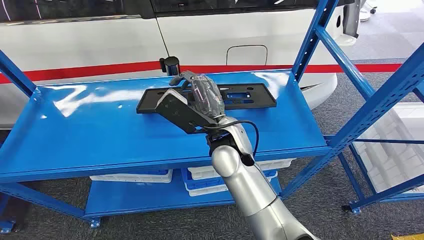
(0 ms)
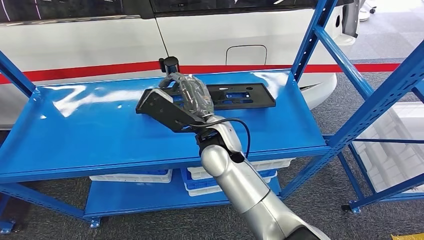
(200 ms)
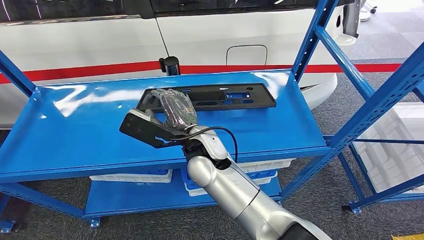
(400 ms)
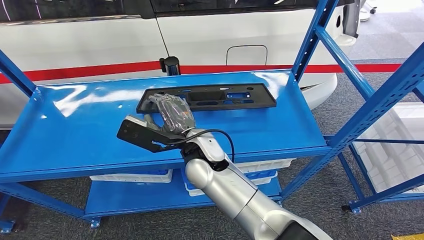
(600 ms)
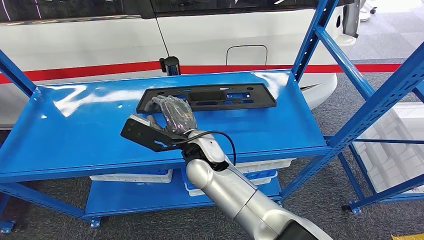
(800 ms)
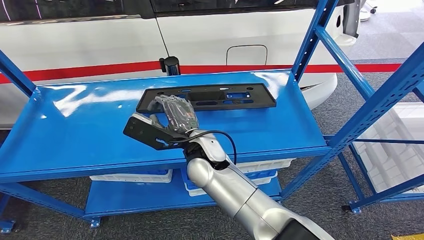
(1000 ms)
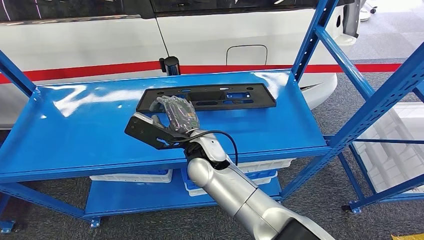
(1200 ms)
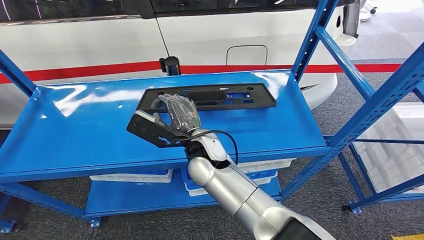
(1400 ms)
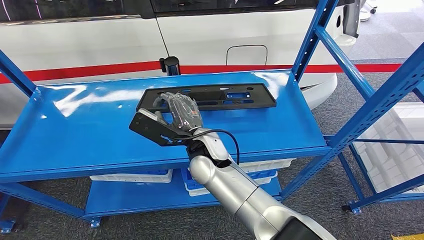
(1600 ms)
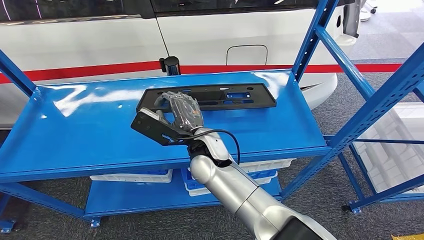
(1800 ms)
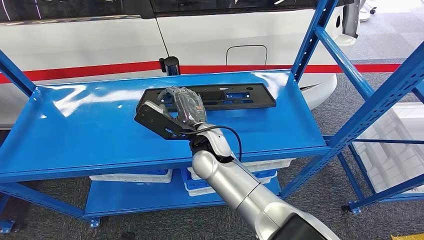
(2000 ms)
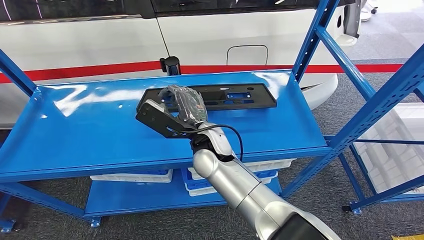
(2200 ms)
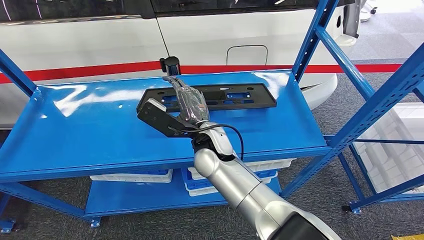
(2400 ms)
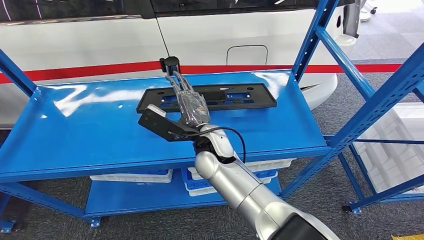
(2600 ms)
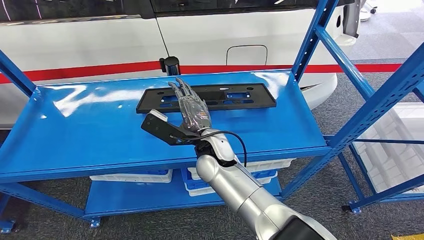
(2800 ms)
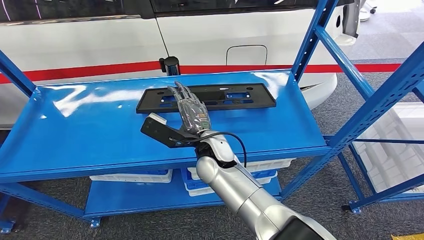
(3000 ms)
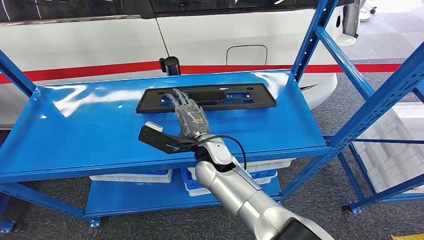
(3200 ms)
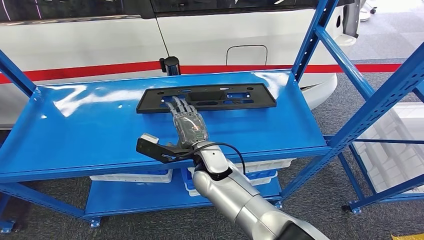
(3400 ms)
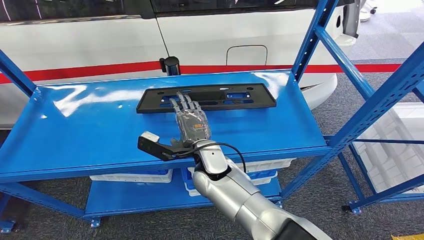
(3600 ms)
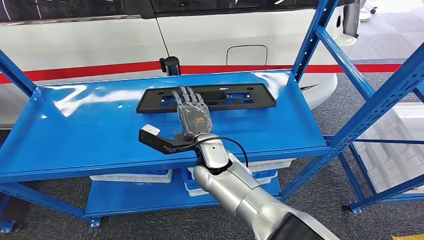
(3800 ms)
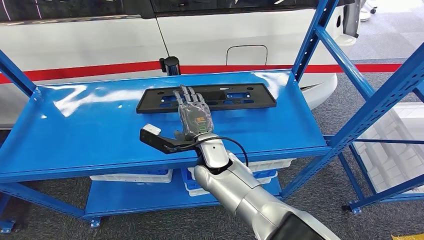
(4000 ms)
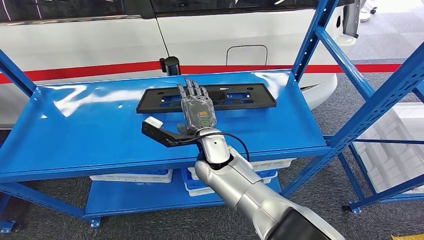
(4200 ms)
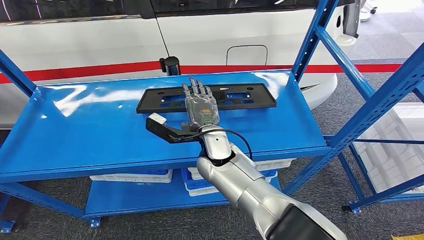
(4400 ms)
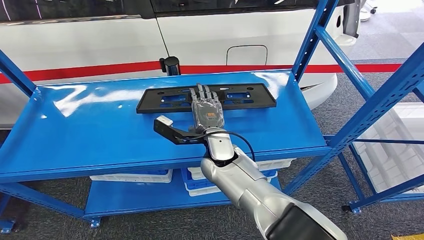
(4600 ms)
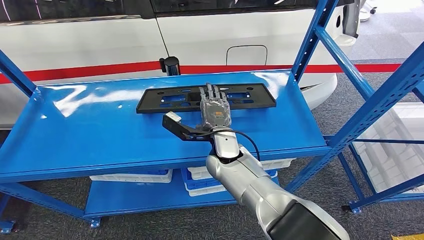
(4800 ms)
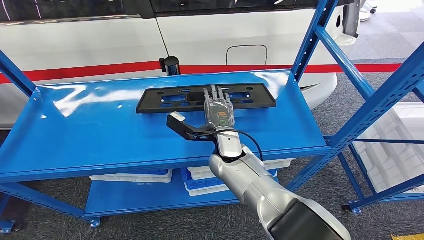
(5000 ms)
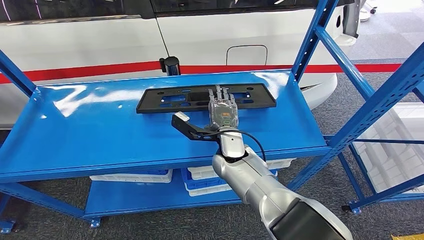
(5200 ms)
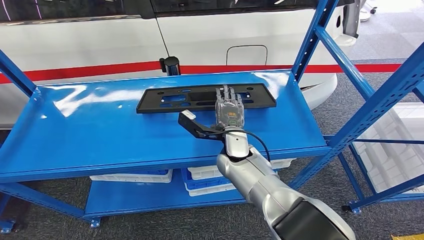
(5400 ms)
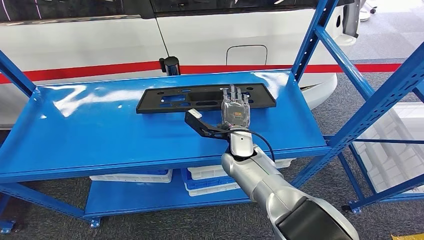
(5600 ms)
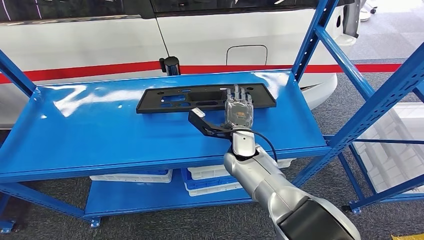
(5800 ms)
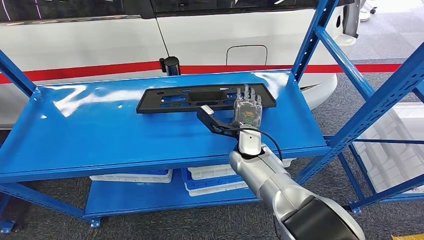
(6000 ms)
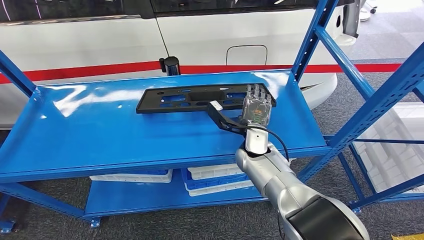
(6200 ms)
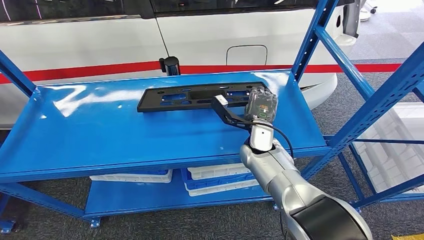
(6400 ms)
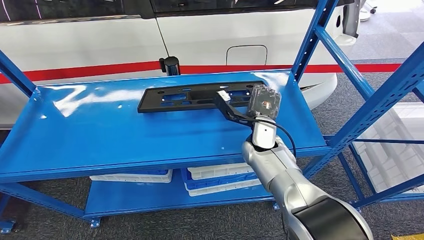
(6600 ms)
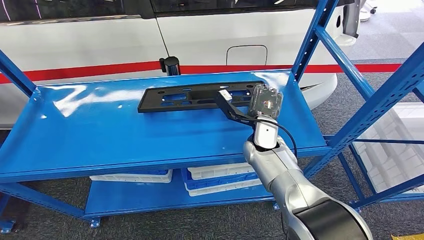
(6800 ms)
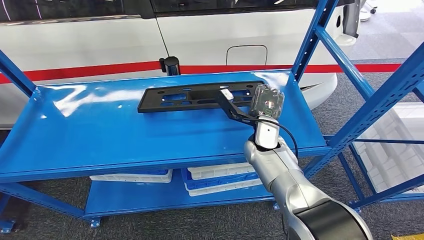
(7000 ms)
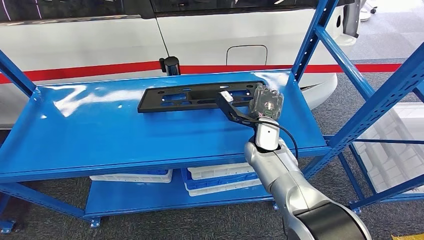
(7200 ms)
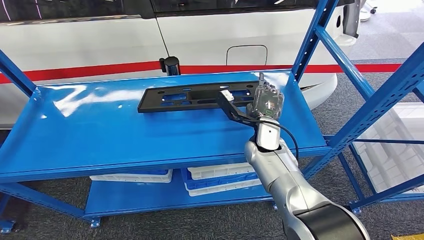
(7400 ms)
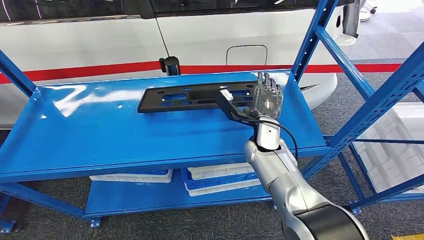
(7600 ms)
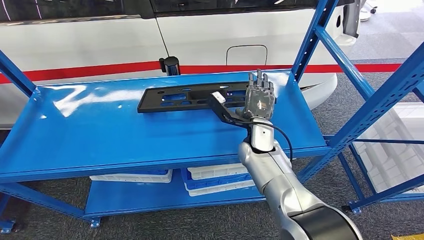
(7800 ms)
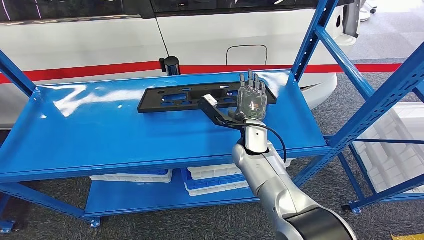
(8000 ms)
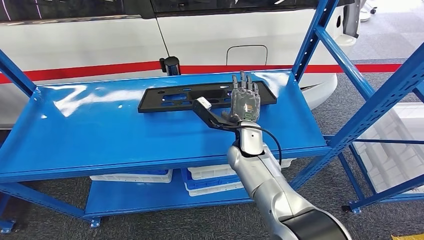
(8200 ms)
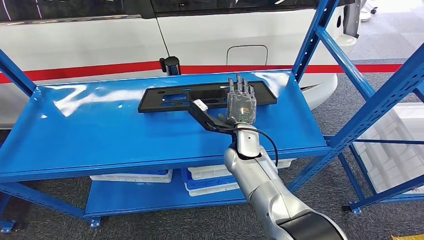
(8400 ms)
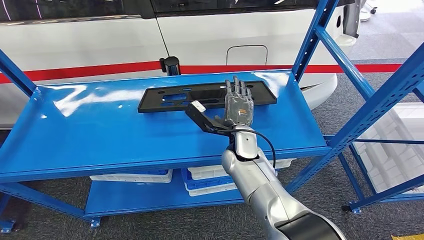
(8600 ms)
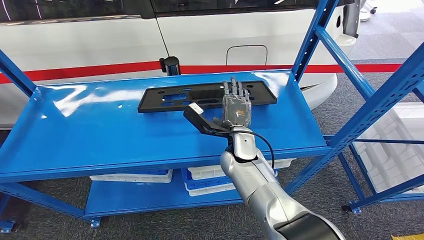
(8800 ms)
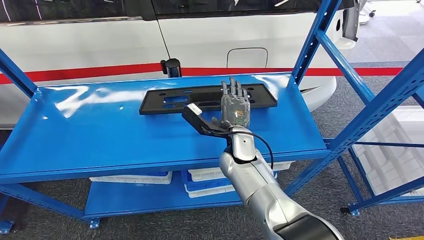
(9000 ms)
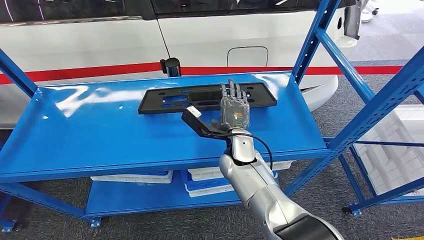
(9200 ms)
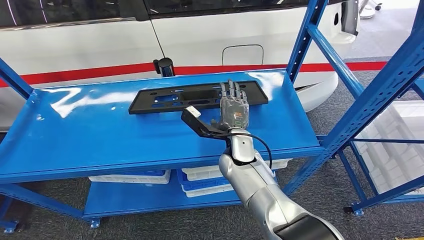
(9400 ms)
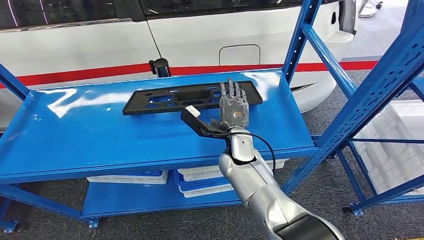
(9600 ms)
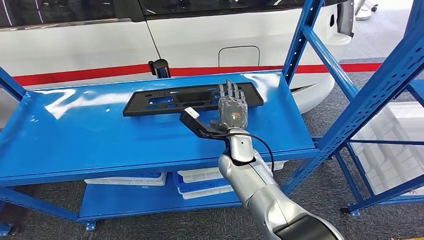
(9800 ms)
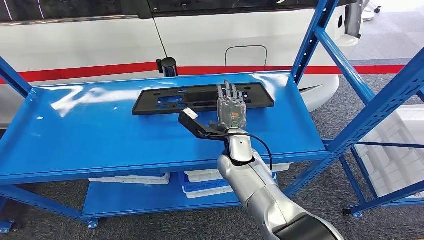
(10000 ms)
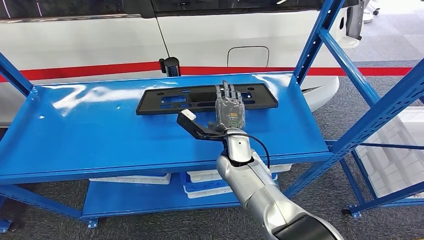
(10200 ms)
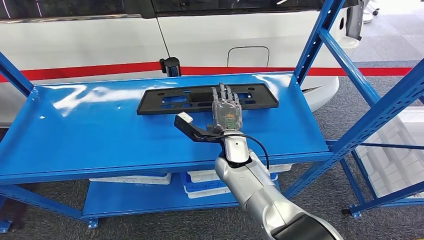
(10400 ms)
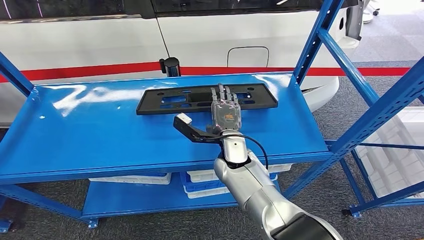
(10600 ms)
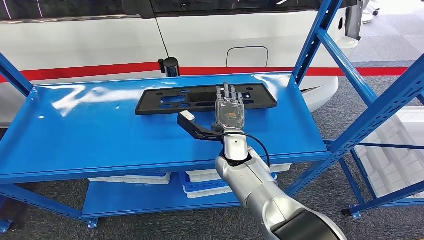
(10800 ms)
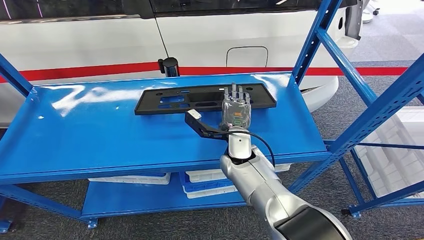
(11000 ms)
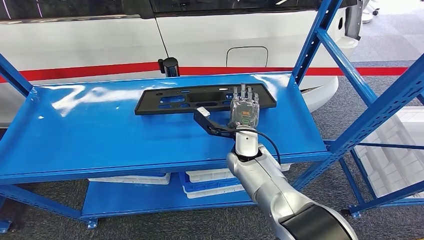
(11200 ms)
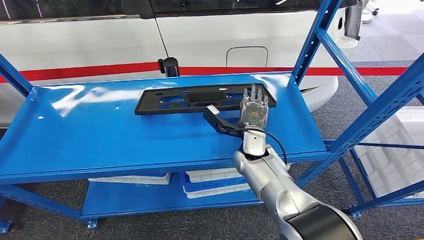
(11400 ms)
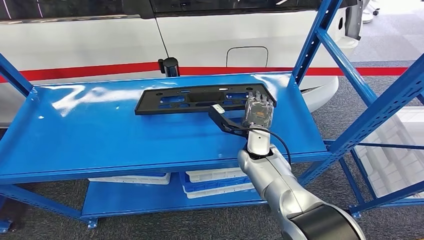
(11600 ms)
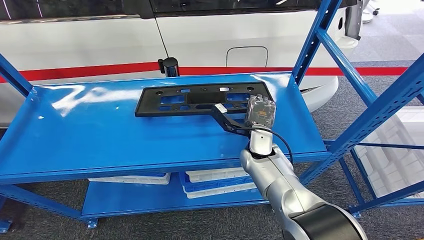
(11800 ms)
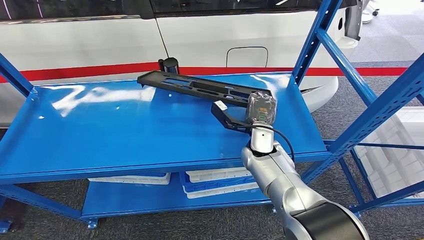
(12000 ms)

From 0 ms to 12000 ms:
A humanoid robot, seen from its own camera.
From 4400 ms to 6000 ms: The right hand heads to the right, covering approximately 10 cm.
From 6000 ms to 7600 ms: There are only small adjustments of the hands.
From 9000 ms to 10400 ms: The hands make only small movements.
From 10400 ms to 12000 ms: The right hand travels to the right by approximately 10 cm.

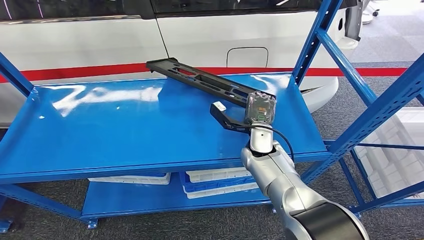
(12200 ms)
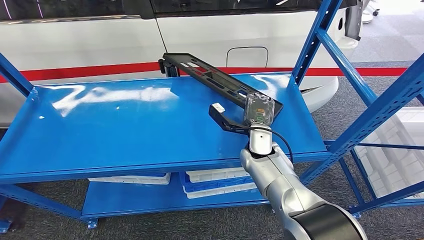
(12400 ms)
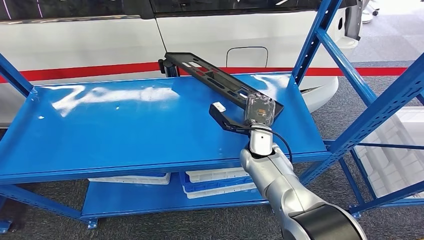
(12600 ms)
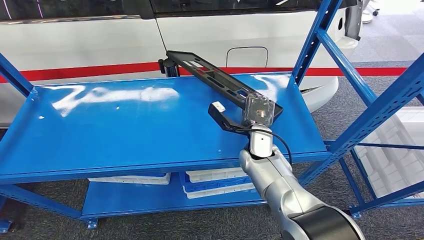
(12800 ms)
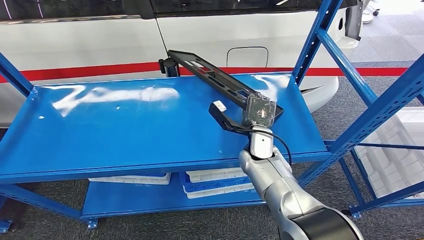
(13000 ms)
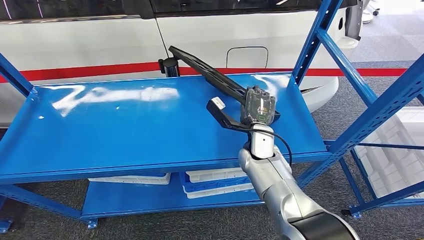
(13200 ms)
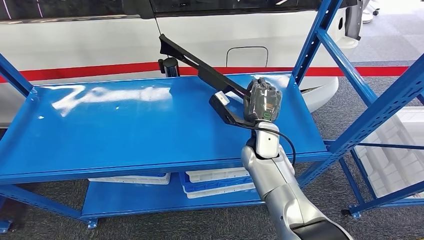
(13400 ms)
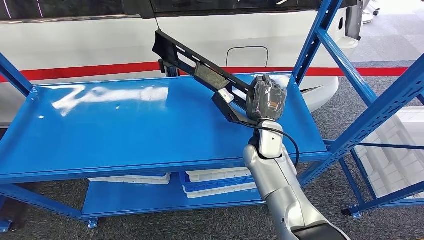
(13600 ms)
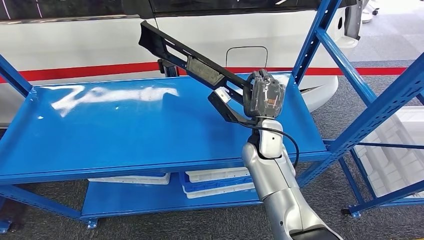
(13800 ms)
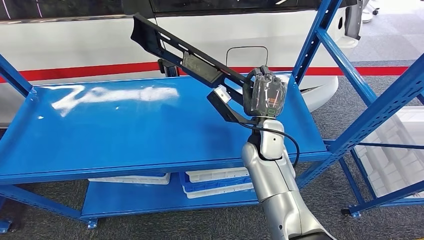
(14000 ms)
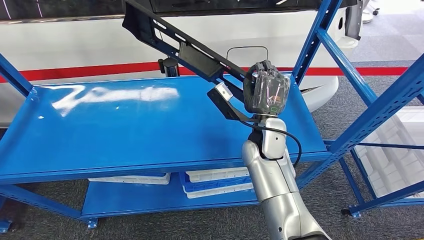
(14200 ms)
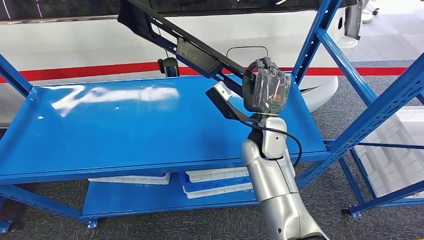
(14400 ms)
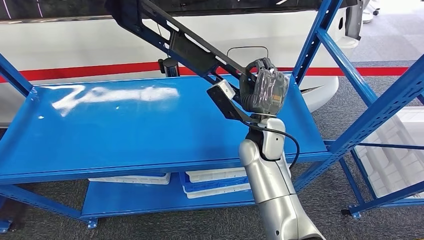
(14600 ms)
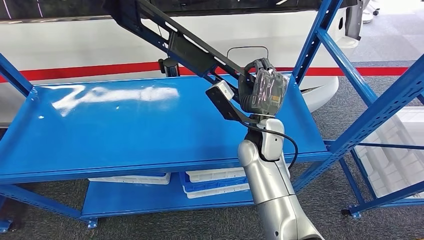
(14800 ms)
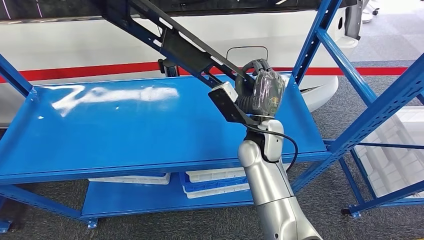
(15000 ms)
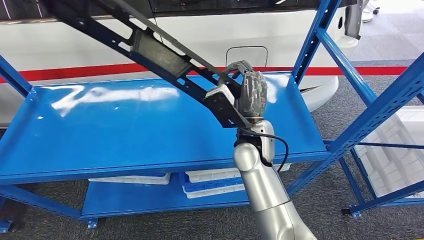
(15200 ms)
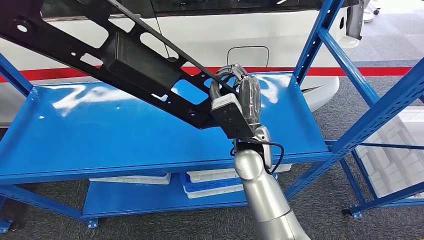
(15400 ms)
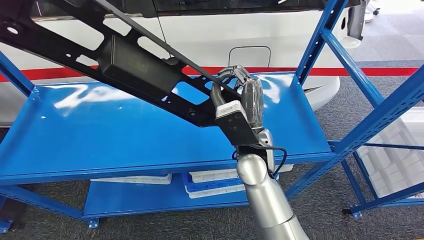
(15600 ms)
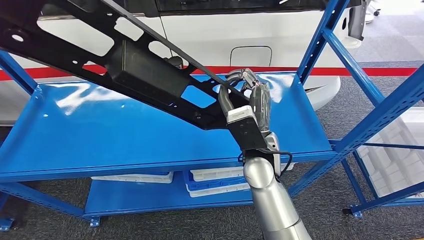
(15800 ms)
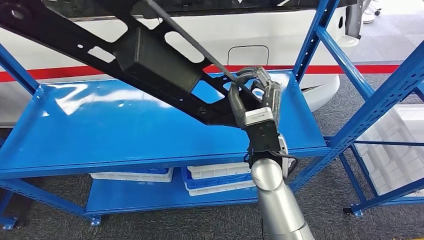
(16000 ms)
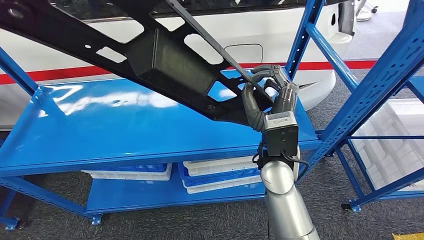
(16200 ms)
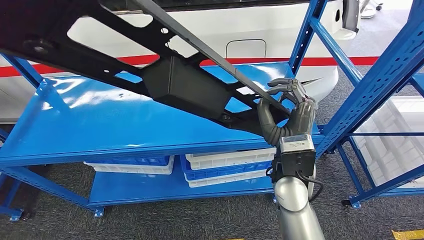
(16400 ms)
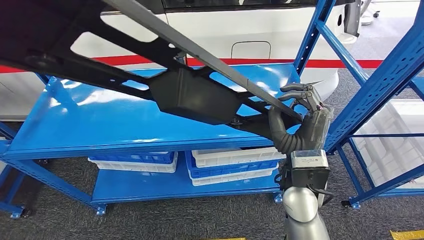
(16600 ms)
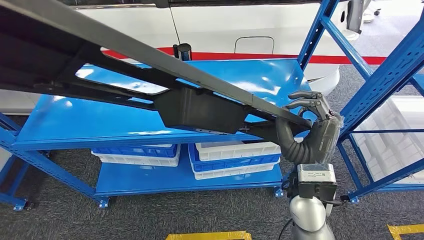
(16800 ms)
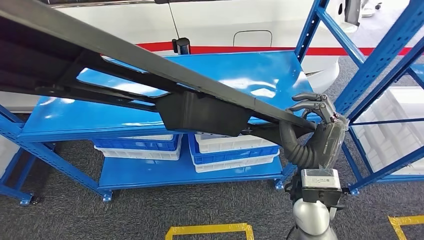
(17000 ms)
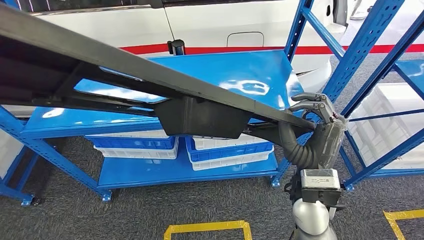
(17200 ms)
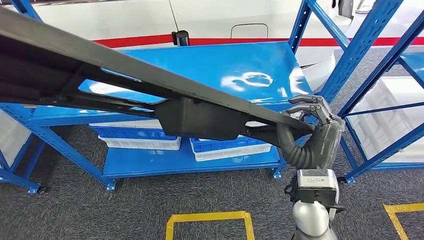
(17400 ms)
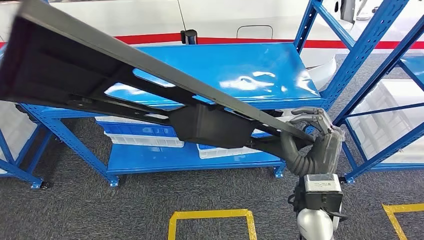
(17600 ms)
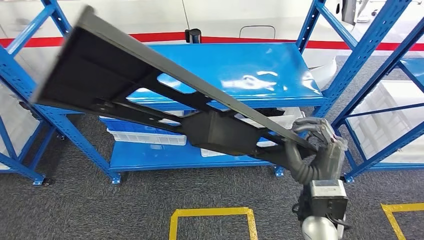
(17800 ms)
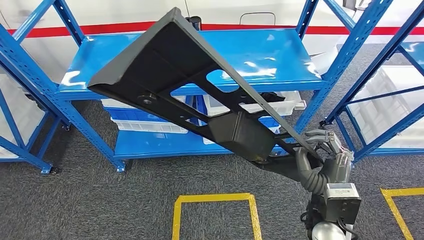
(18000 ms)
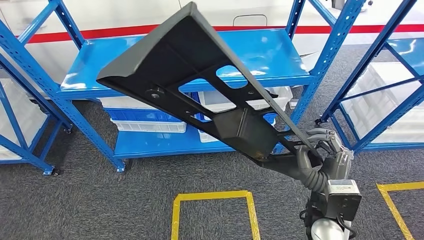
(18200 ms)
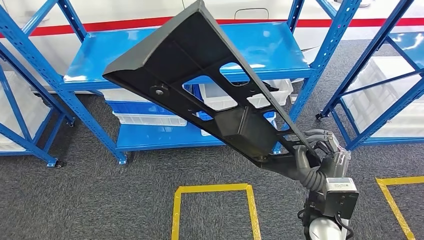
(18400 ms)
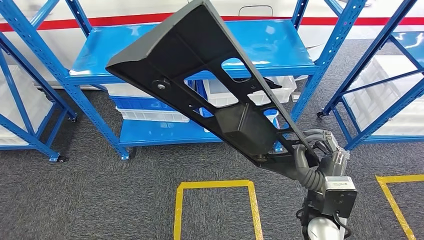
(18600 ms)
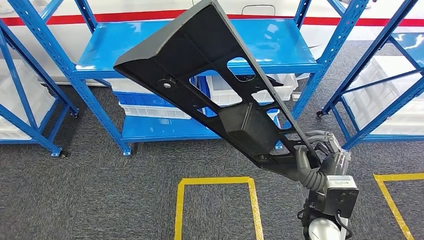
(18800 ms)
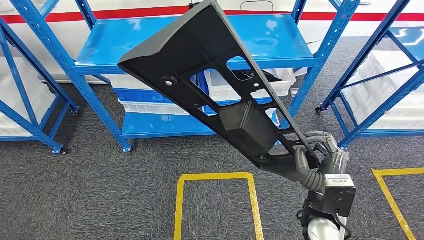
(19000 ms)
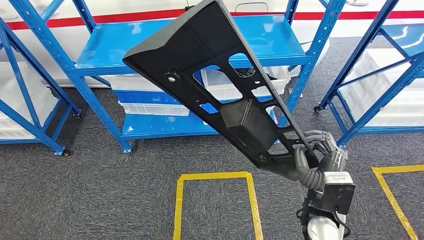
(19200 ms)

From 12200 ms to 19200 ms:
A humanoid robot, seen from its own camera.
Step, from 12200 ms to 17000 ms: Pick up the large material from the shelf.
From 13600 ms to 15000 ms: The right hand moves upward, some 5 cm.
